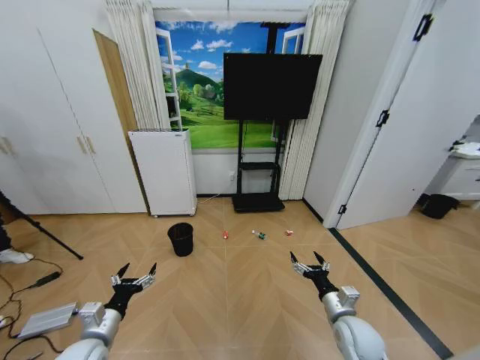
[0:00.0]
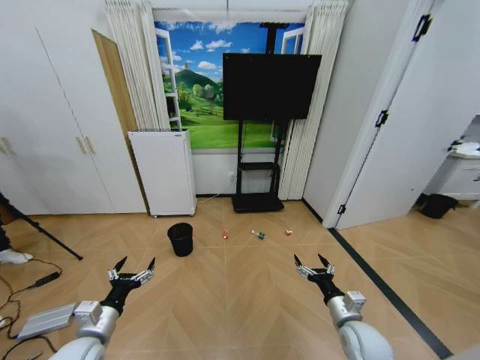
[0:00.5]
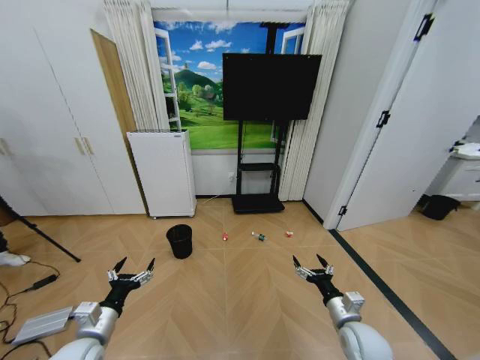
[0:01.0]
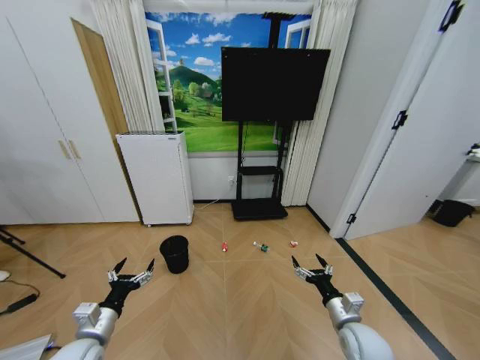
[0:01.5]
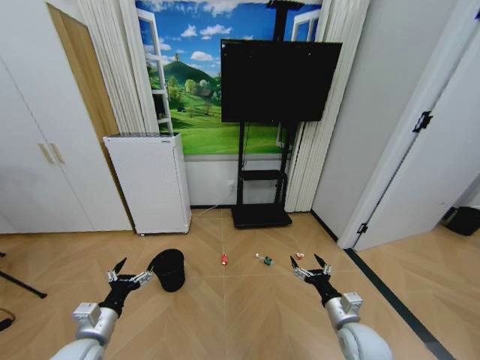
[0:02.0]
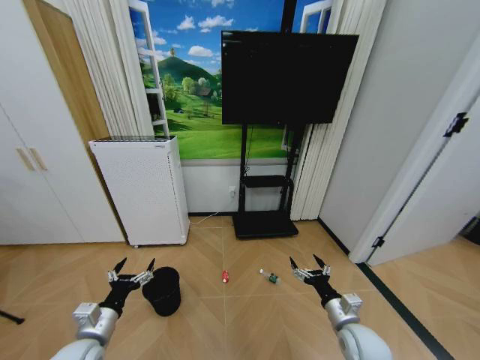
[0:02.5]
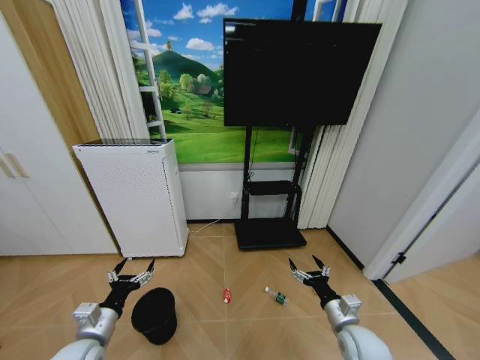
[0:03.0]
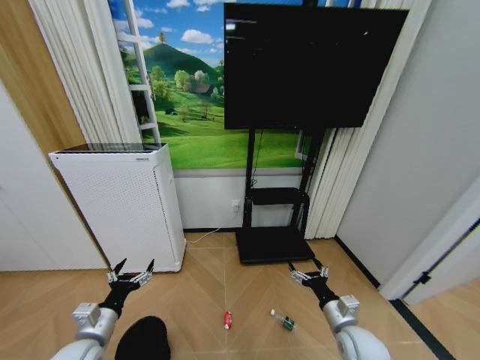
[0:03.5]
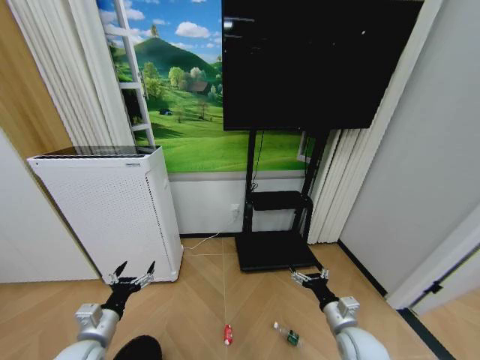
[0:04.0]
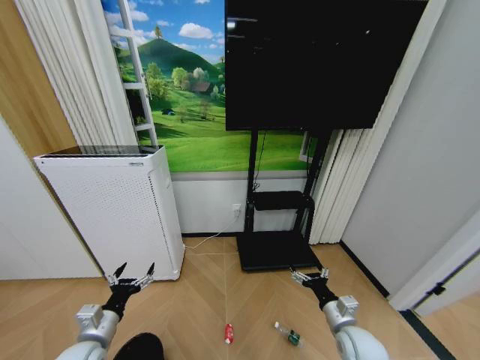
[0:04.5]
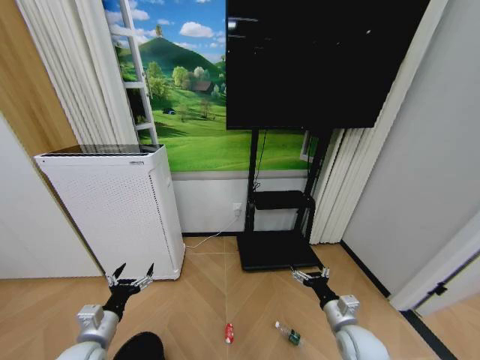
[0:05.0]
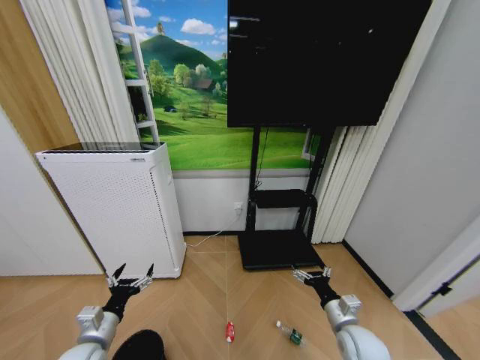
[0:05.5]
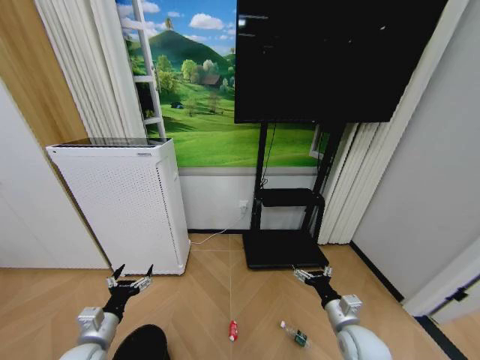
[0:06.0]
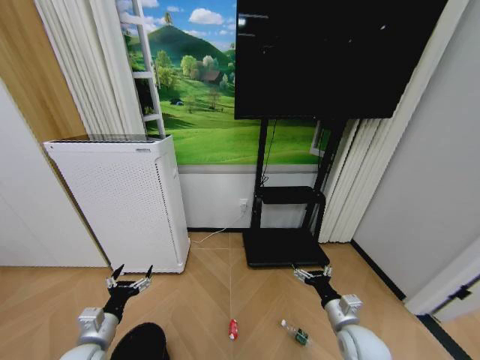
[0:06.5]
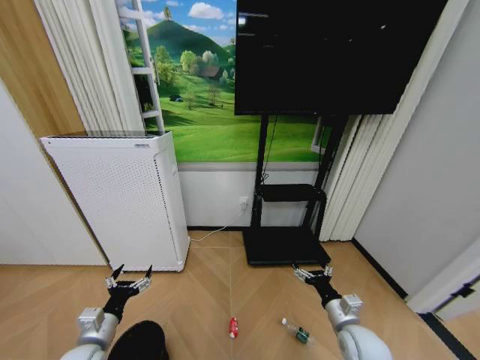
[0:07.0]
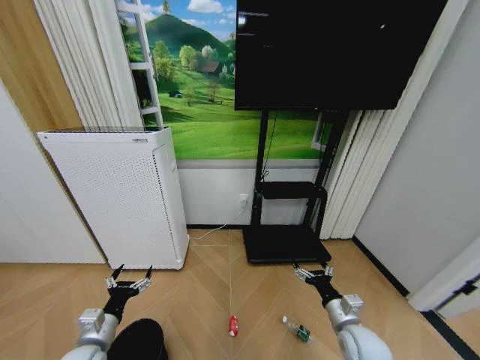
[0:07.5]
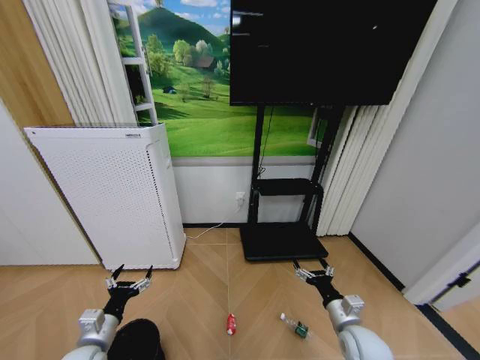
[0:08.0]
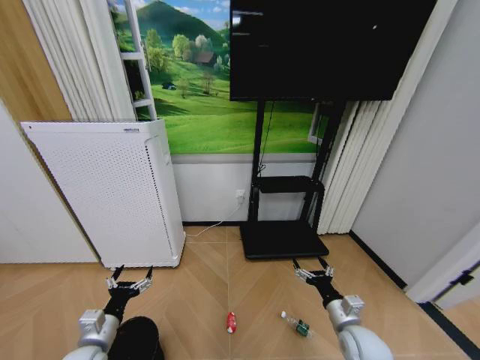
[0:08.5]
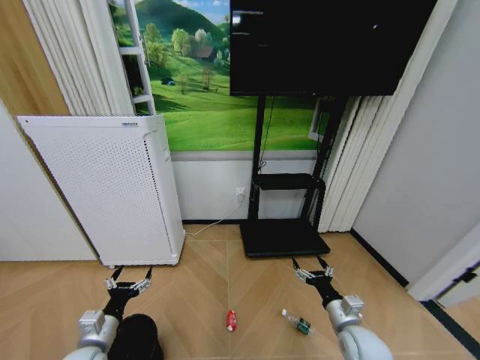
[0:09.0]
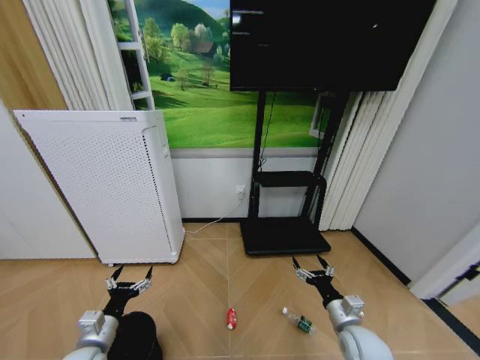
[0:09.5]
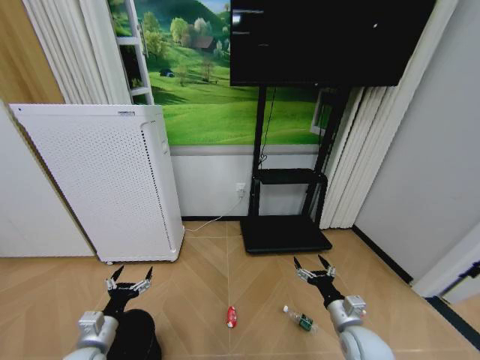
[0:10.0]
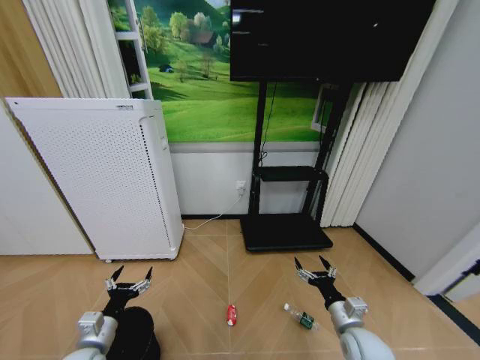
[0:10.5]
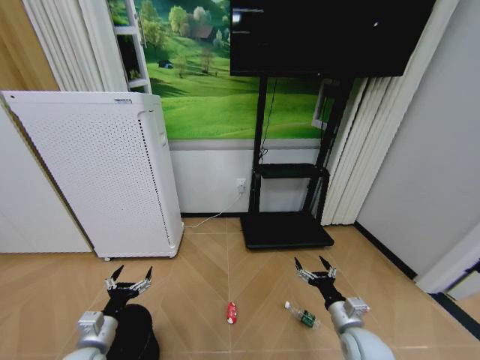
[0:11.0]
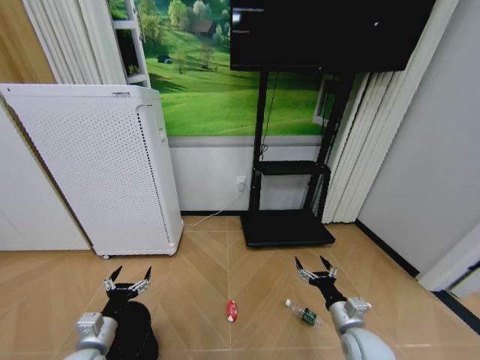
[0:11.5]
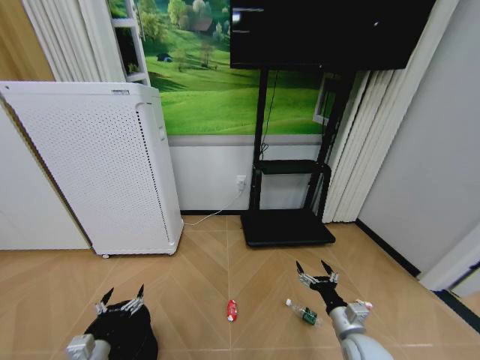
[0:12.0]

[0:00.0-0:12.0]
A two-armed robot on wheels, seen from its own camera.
Task of the whole recording: Pick up the trash bin and place the garbage on the floor into it.
0:08.0 to 0:10.0: Both grippers stay put.
0:10.0 to 0:12.0: The grippers stay close to where they were, moving slightly.

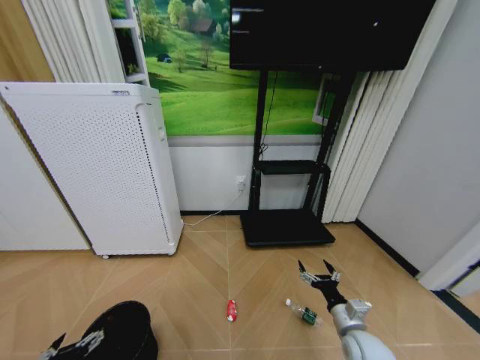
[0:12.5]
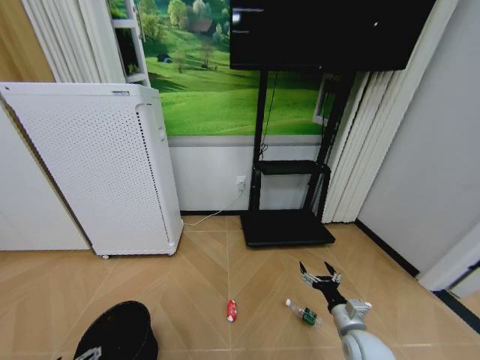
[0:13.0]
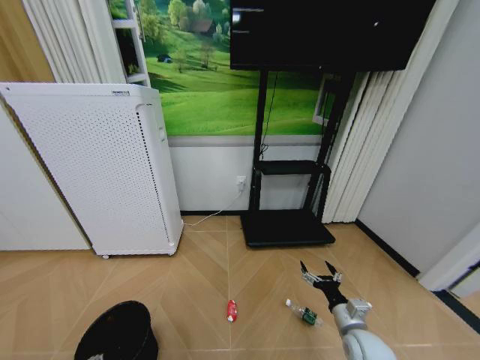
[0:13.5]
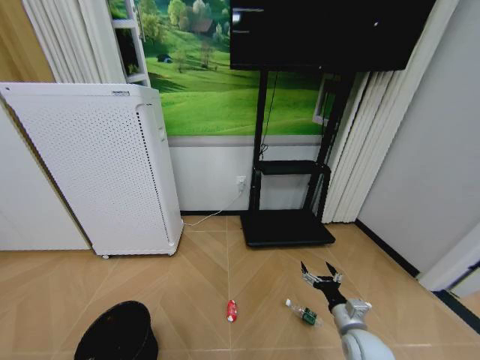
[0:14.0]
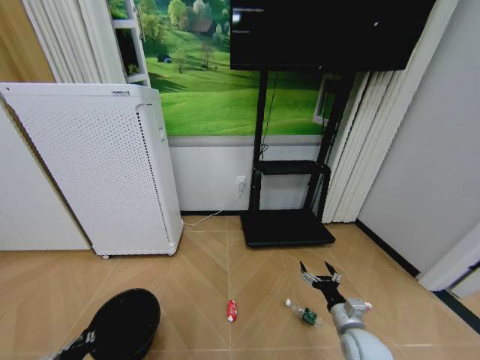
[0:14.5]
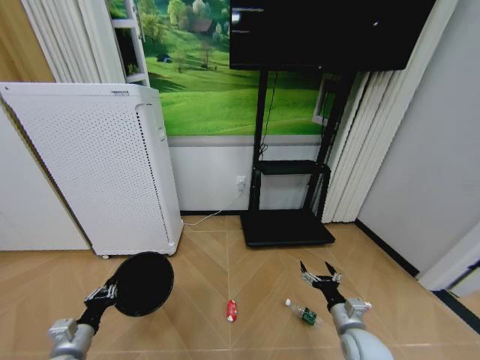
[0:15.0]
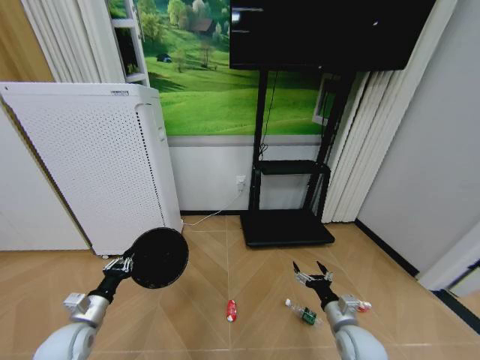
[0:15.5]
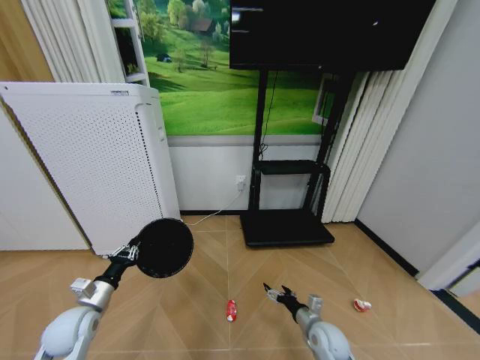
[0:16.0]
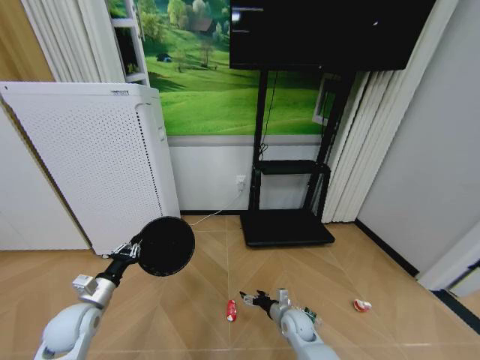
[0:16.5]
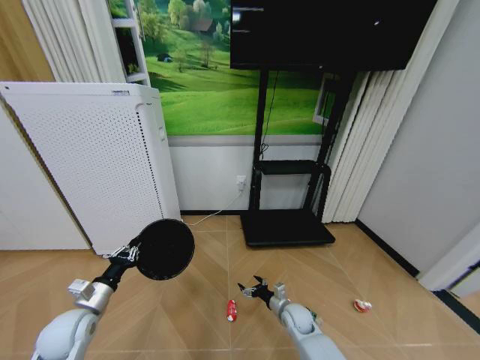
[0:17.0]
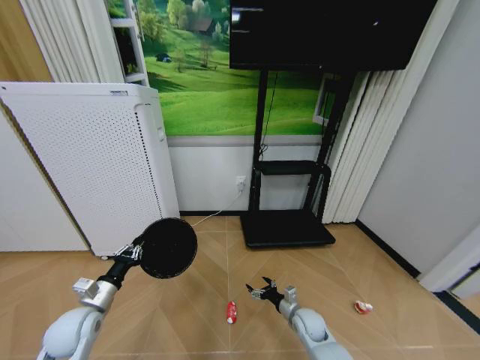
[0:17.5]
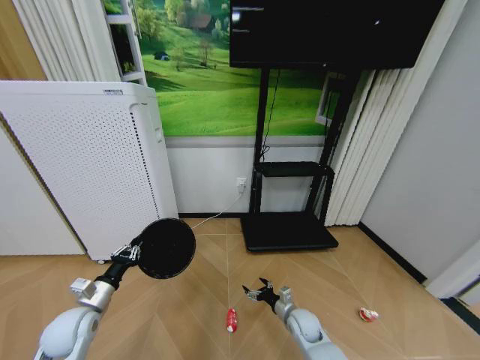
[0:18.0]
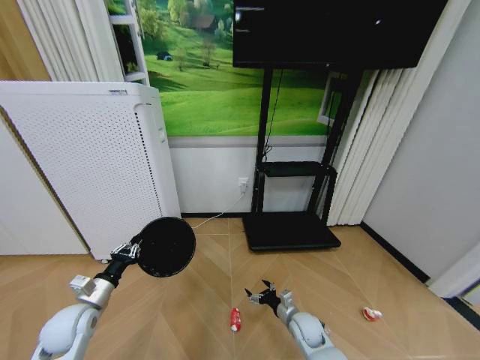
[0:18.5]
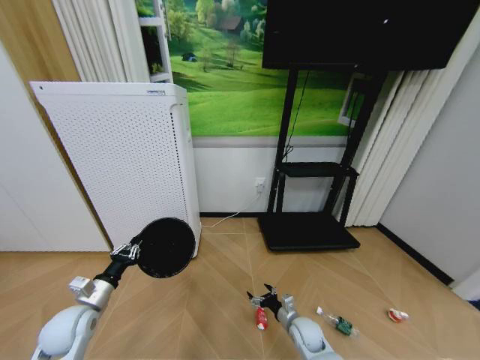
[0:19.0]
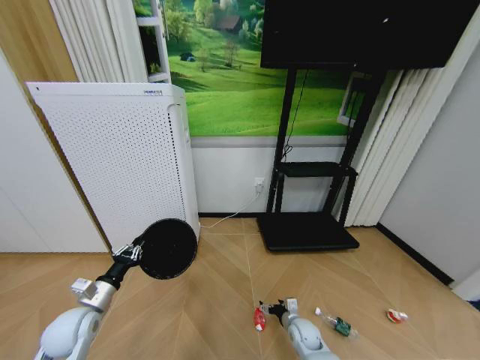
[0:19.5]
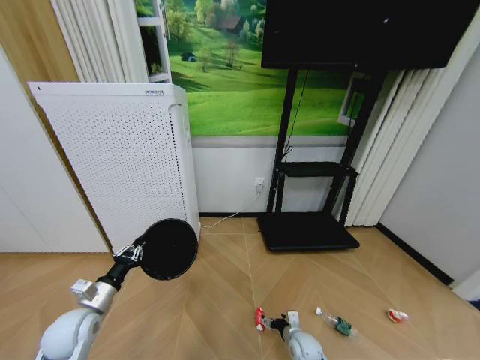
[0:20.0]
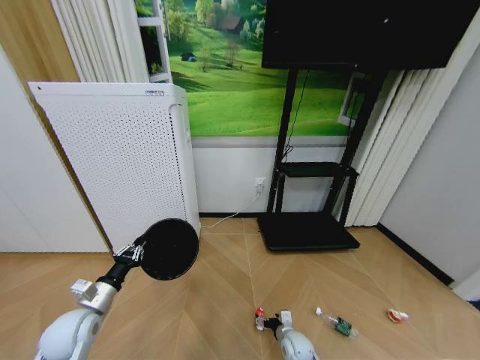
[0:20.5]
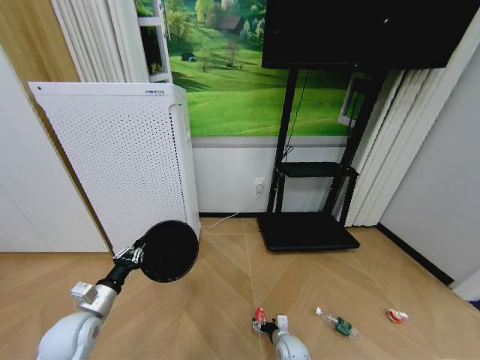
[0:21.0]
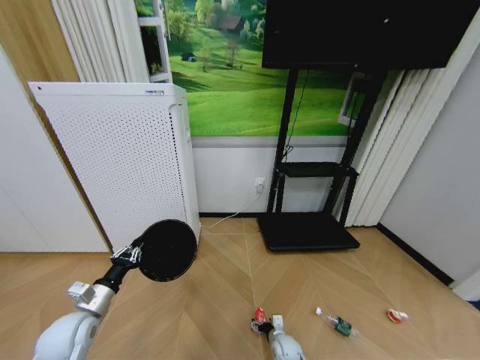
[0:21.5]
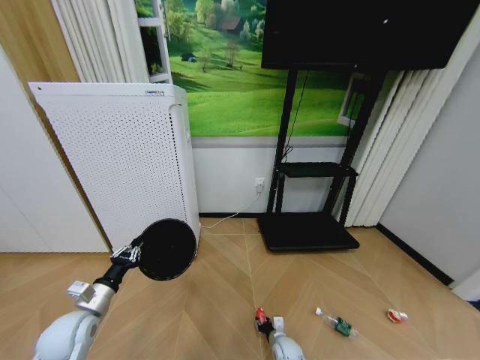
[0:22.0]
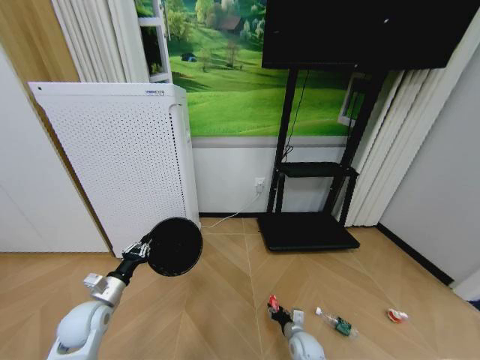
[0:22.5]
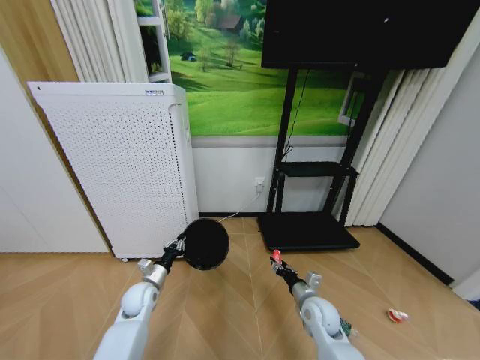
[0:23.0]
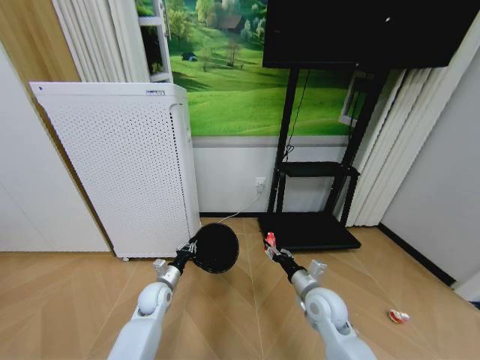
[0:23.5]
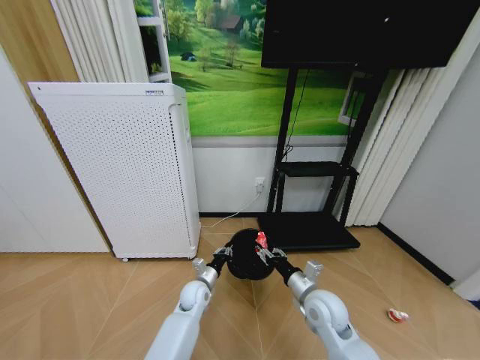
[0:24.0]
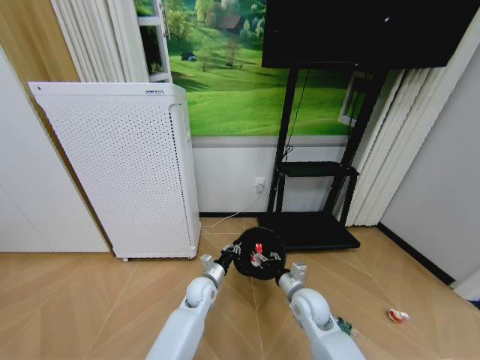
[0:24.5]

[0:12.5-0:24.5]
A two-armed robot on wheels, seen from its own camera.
Task of the whole recording: Pick up the trash bin and place the garbage on the floor into it.
0:12.5 to 0:14.5: The left gripper heads downward, covering some 5 cm, and closes up.
0:14.5 to 0:16.5: The left gripper heads forward and upward, covering about 20 cm; the right gripper moves to the left, downward and forward, about 20 cm.
0:18.5 to 0:20.5: The right gripper heads downward, covering some 5 cm.
0:20.5 to 0:22.5: The right gripper closes up.
0:22.5 to 0:24.5: The left gripper goes some 30 cm to the right. Meanwhile the right gripper heads upward, covering some 20 cm.

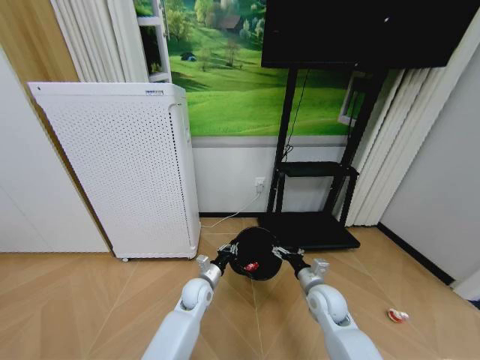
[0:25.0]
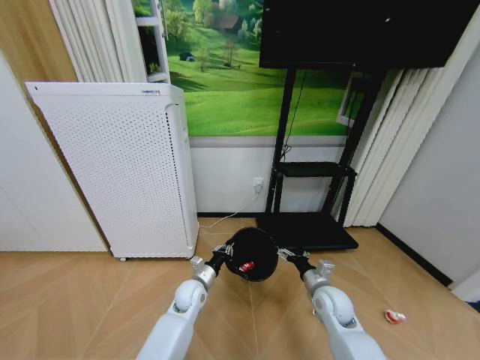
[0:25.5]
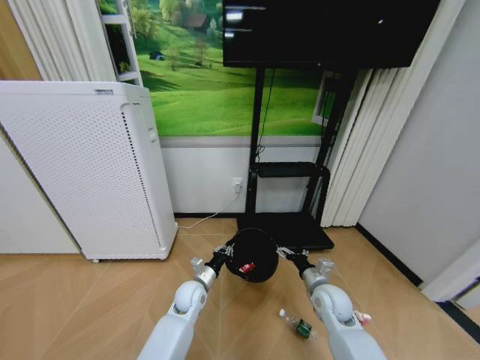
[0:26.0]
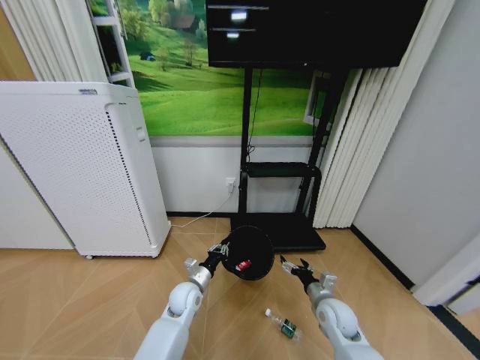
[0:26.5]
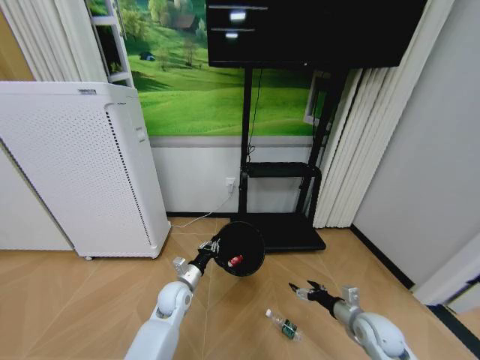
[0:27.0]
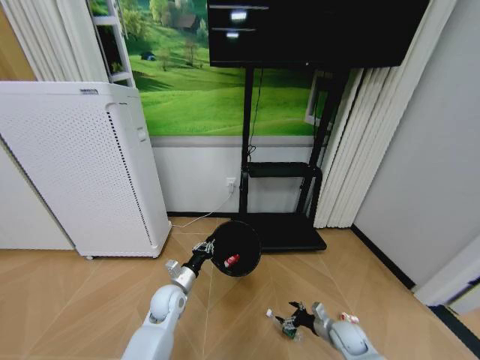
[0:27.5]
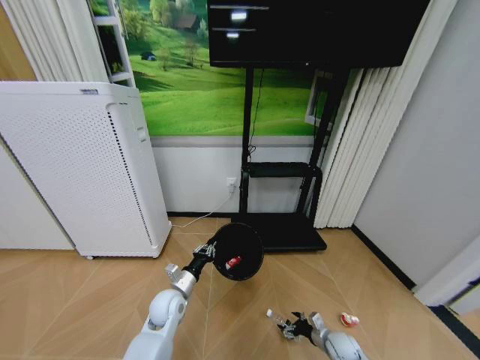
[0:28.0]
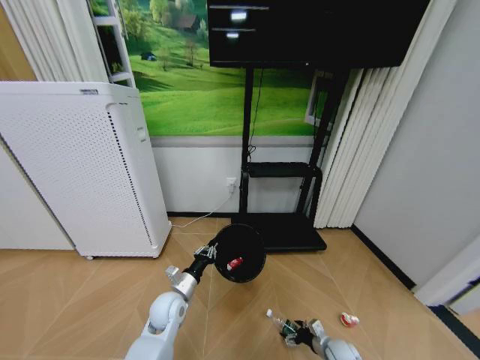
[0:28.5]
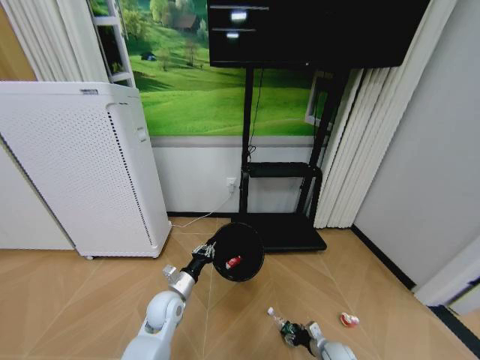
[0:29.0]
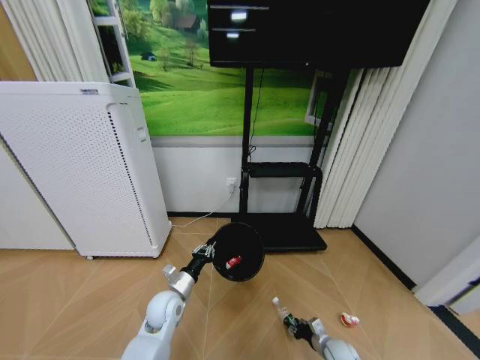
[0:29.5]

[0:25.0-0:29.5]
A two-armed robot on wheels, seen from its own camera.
Task of the whole recording: Pick up the trash bin and place the garbage on the floor into it.
0:25.0 to 0:27.0: The right gripper heads to the right and backward, covering about 15 cm; the left gripper shifts some 5 cm to the left.
0:27.0 to 0:29.5: The right gripper goes roughly 20 cm downward, and closes up.
